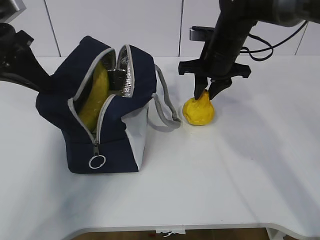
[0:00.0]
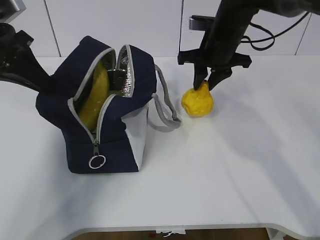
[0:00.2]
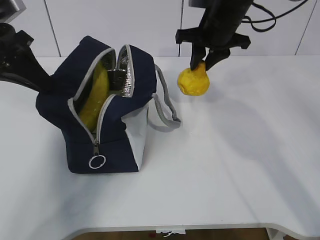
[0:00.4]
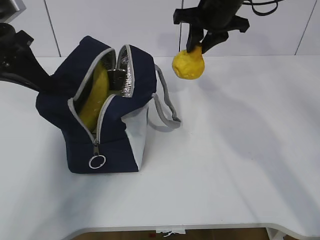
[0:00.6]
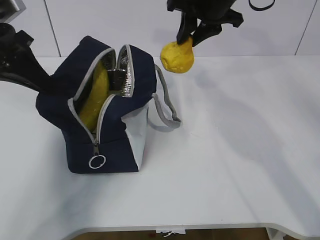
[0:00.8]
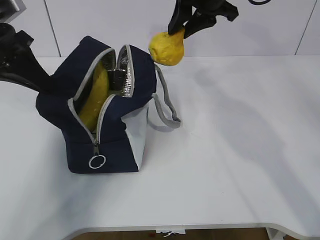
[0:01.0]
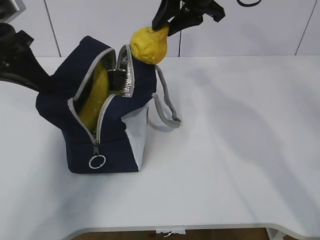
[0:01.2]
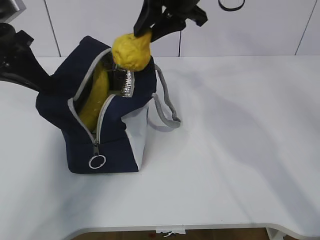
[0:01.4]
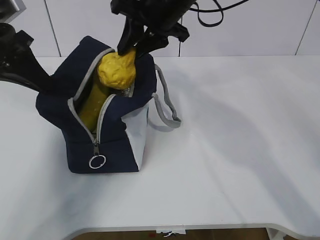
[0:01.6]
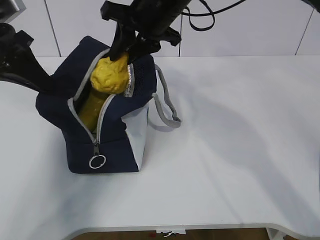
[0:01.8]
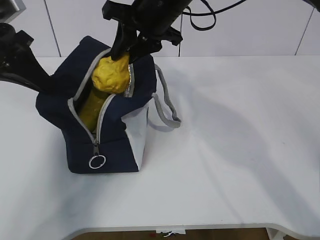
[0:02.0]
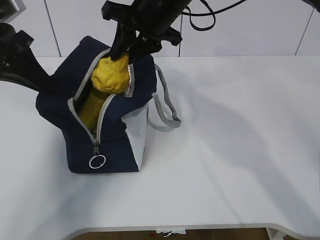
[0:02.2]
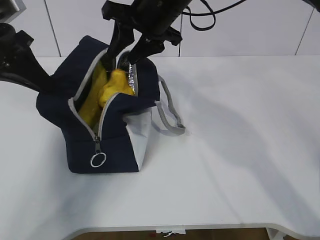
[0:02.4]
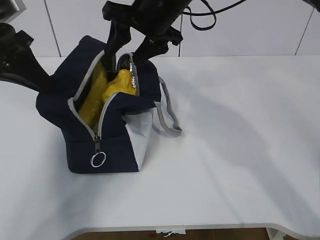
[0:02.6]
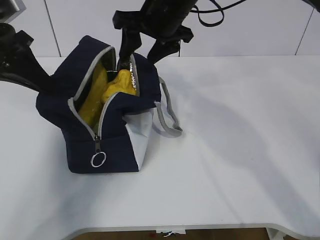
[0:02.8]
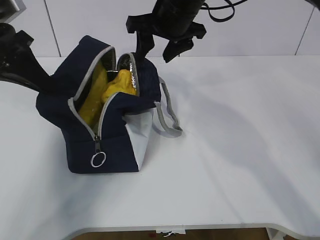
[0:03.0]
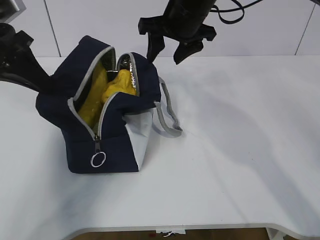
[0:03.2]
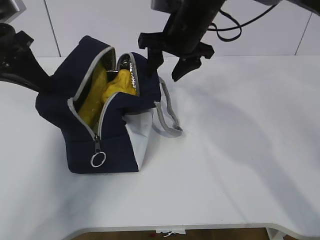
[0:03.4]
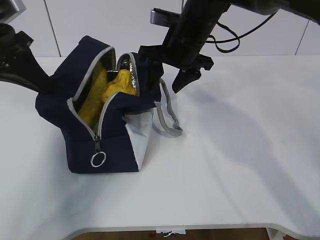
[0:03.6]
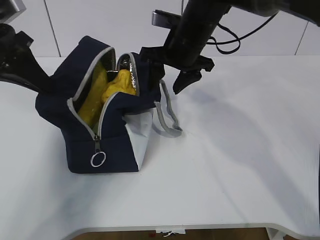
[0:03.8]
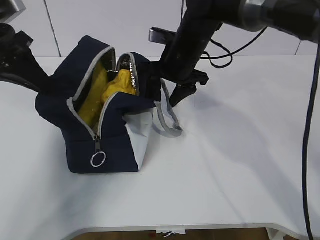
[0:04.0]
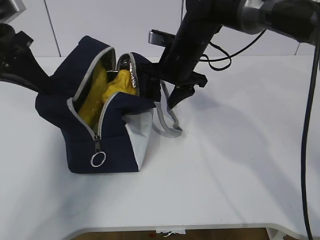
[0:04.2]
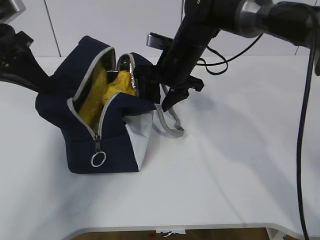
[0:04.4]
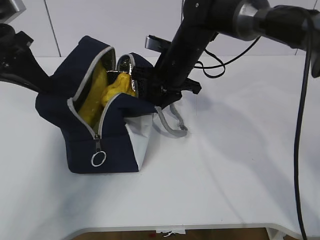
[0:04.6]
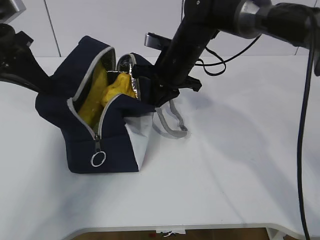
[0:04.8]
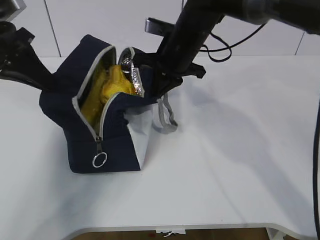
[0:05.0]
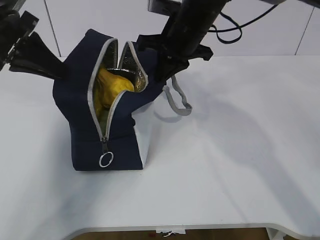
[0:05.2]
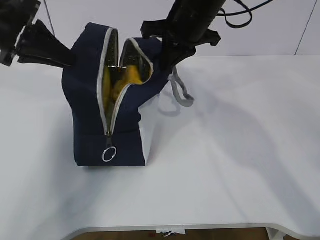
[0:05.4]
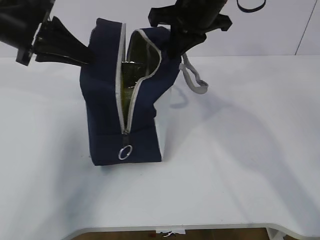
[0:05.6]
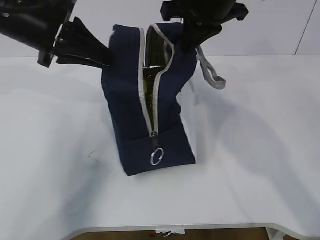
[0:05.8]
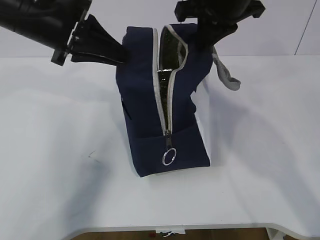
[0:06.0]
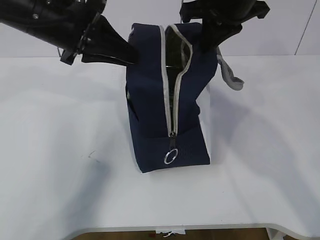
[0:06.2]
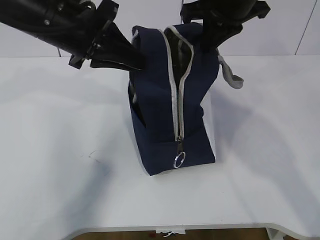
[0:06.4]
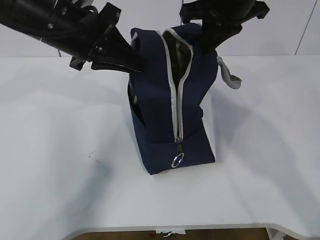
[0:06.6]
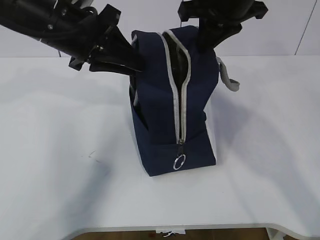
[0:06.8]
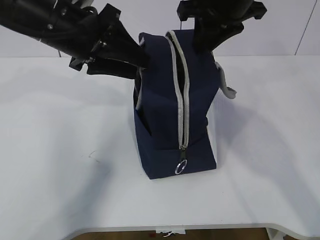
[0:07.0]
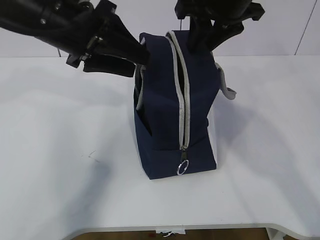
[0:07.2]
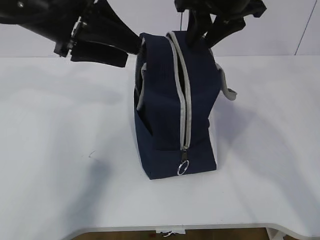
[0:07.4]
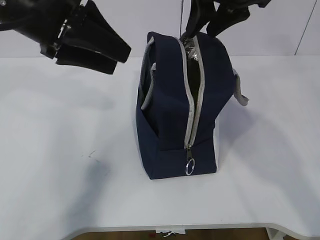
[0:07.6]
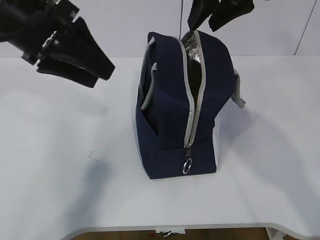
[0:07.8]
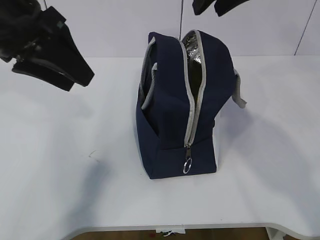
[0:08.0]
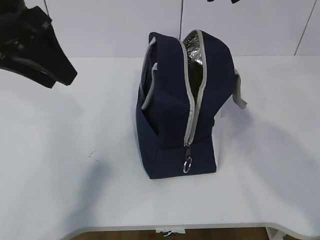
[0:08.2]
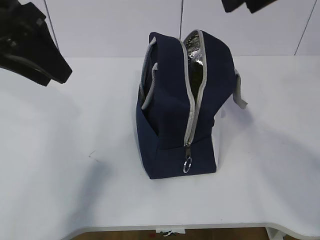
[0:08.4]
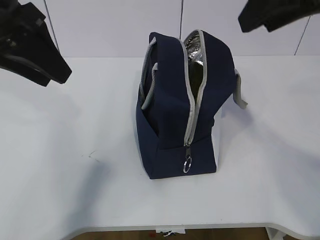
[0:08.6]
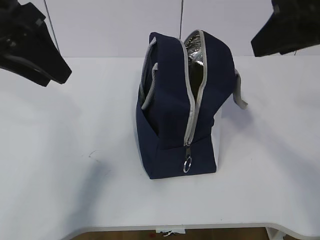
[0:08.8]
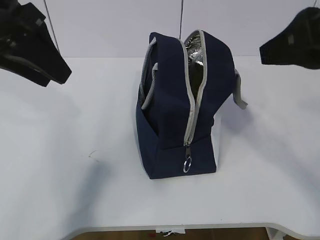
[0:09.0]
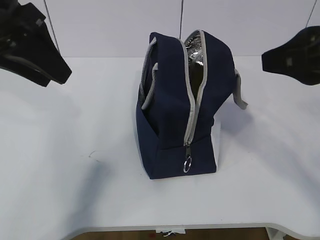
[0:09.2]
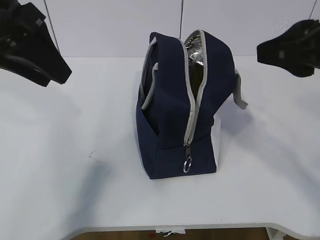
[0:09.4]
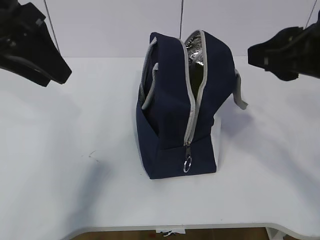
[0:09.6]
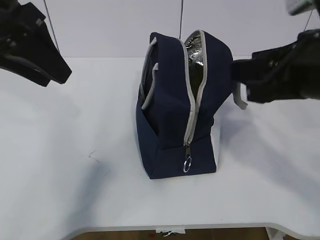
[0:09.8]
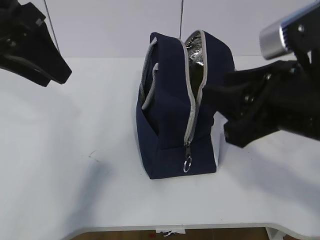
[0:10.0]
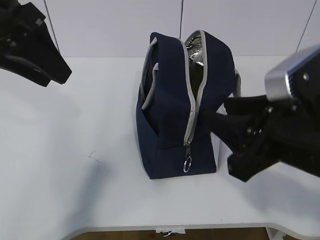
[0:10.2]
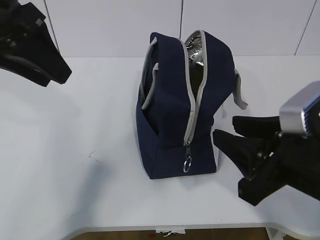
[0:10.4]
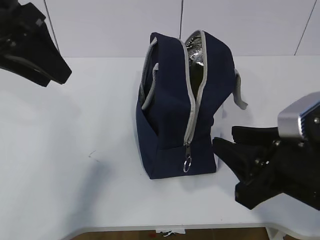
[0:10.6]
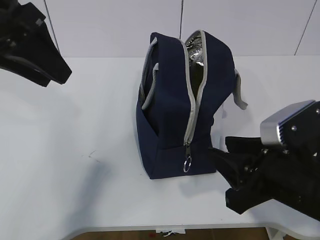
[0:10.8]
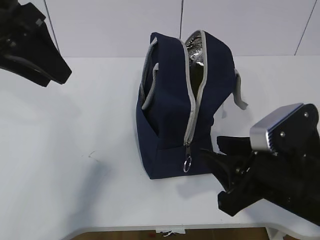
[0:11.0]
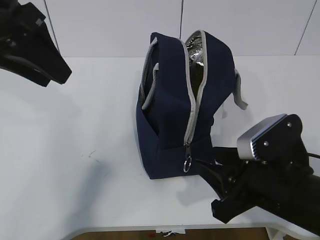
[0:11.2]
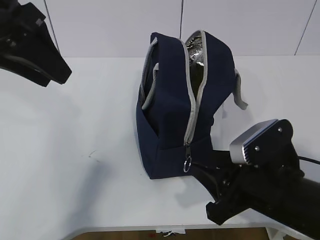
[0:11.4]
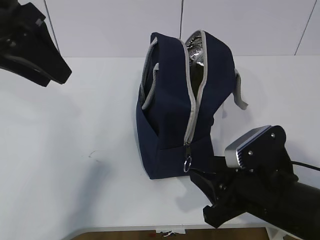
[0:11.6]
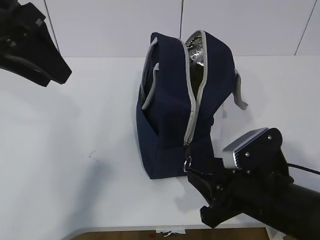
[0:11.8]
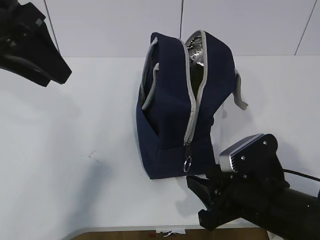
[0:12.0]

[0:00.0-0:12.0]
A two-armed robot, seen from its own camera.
0:00.0 to 0:01.6: The right gripper shifts about 15 cm upward and to the left.
0:01.6 to 0:03.0: The right gripper opens its fingers.
0:03.0 to 0:04.4: The right gripper goes approximately 10 cm downward.
0:04.4 to 0:06.0: The left gripper travels to the right by some 10 cm; the right gripper heads upward, to the right and backward, covering some 15 cm, and closes up.
0:06.0 to 0:07.6: The right gripper opens; the left gripper opens.
0:07.6 to 0:09.0: The left gripper shifts by approximately 5 cm; the right gripper travels backward by about 15 cm.
0:09.0 to 0:10.4: The right gripper moves downward, approximately 15 cm.
0:10.4 to 0:12.0: The right gripper heads downward, covering about 10 cm.

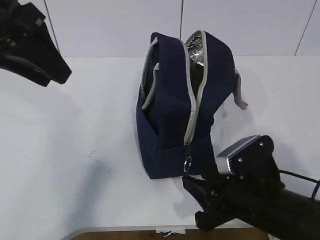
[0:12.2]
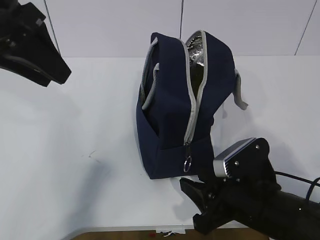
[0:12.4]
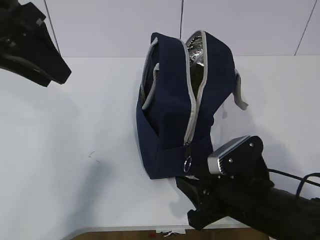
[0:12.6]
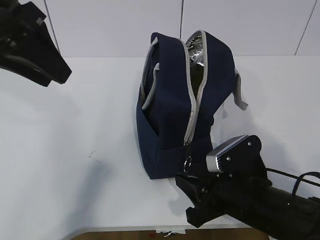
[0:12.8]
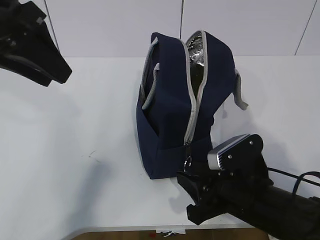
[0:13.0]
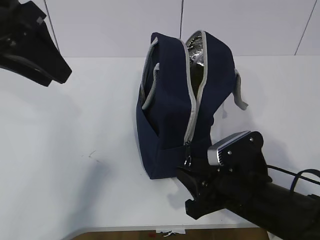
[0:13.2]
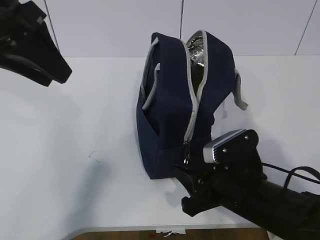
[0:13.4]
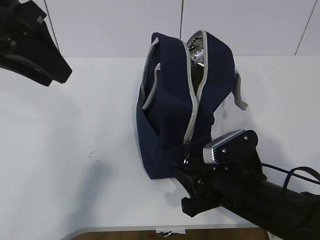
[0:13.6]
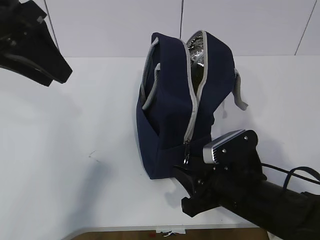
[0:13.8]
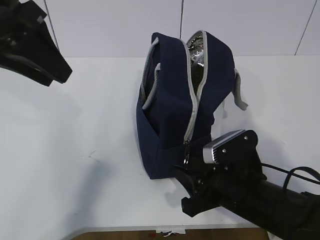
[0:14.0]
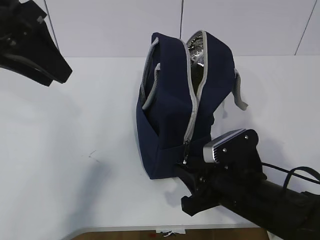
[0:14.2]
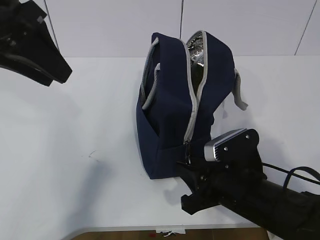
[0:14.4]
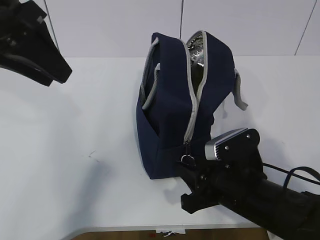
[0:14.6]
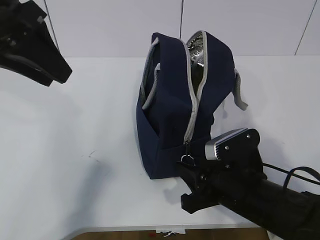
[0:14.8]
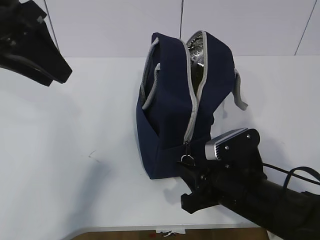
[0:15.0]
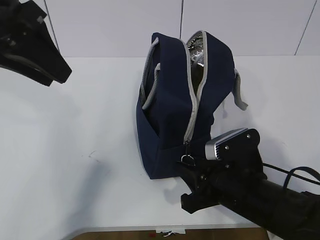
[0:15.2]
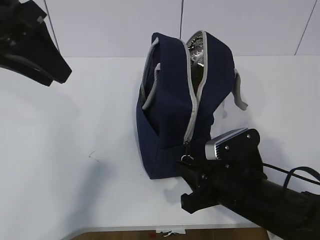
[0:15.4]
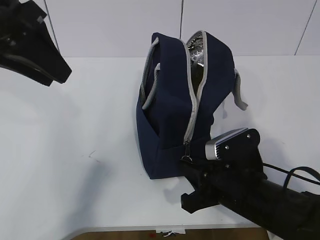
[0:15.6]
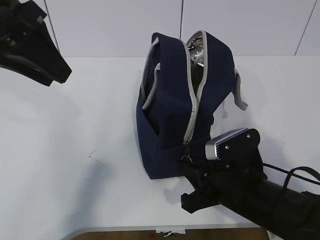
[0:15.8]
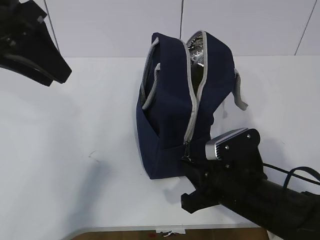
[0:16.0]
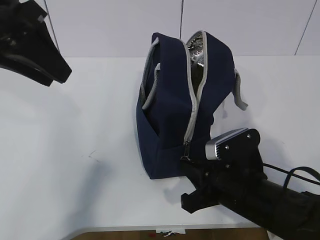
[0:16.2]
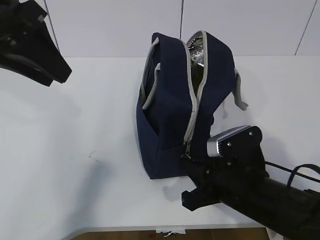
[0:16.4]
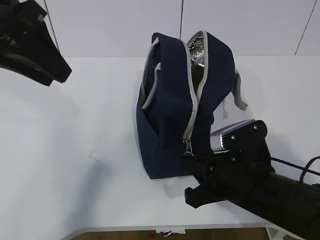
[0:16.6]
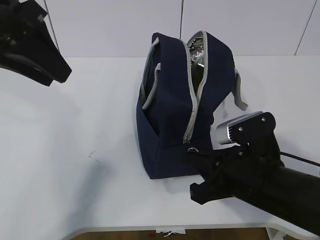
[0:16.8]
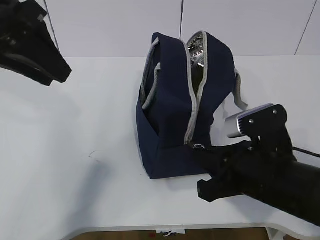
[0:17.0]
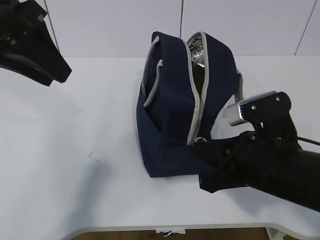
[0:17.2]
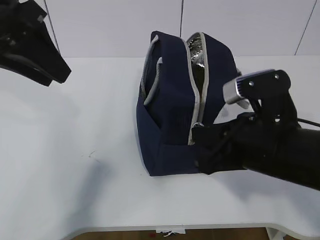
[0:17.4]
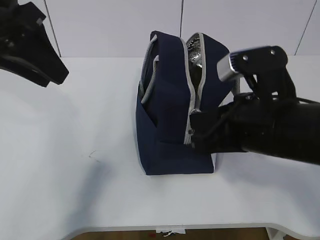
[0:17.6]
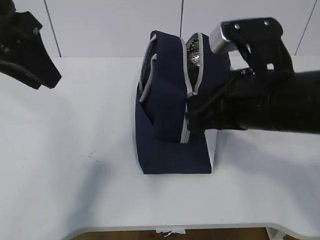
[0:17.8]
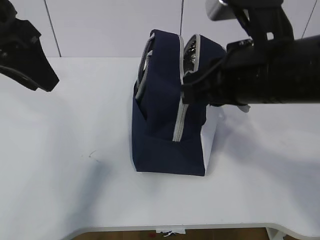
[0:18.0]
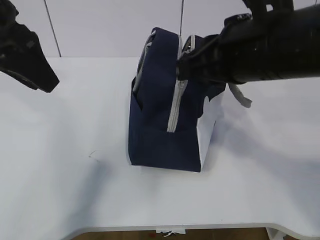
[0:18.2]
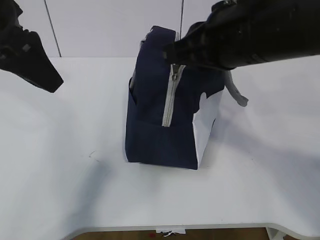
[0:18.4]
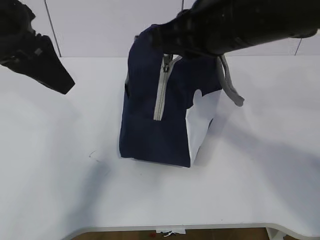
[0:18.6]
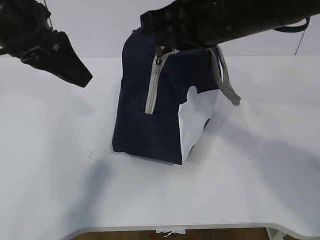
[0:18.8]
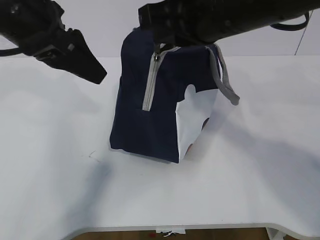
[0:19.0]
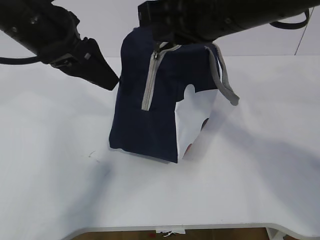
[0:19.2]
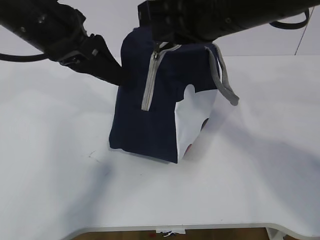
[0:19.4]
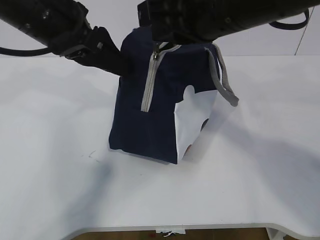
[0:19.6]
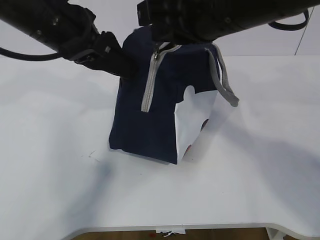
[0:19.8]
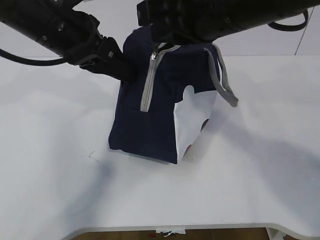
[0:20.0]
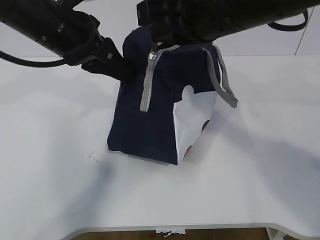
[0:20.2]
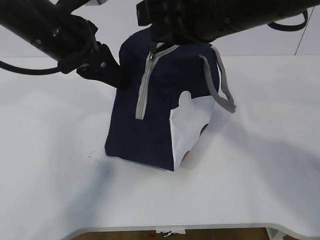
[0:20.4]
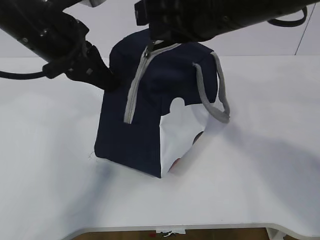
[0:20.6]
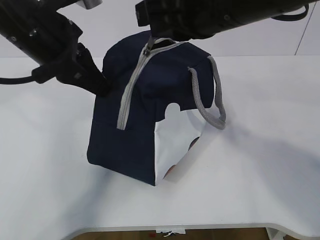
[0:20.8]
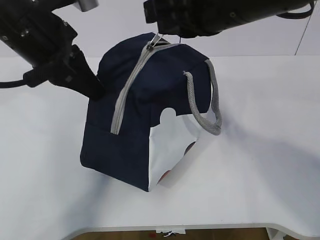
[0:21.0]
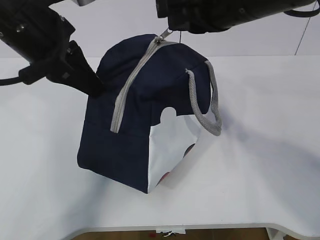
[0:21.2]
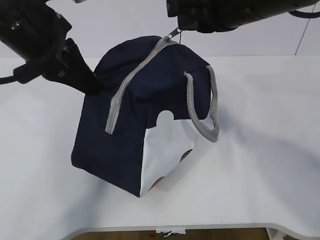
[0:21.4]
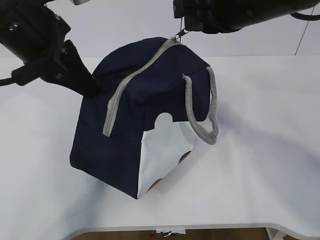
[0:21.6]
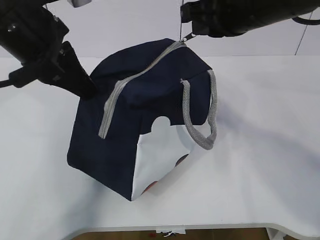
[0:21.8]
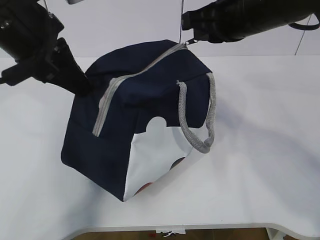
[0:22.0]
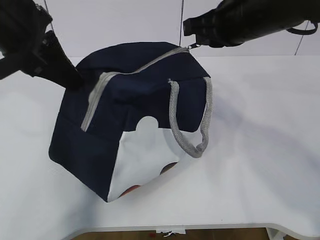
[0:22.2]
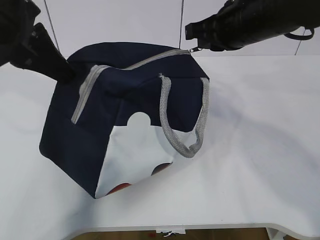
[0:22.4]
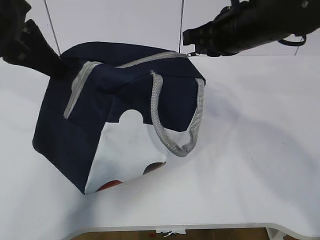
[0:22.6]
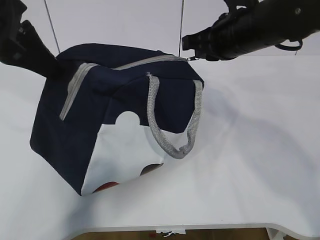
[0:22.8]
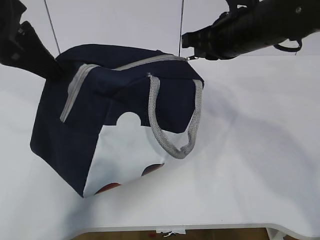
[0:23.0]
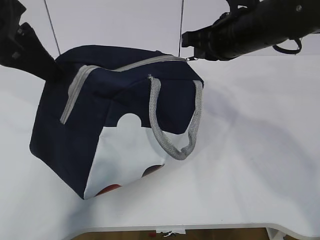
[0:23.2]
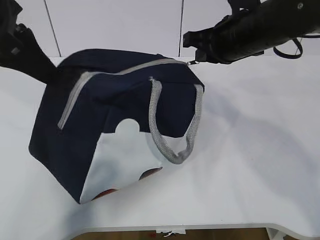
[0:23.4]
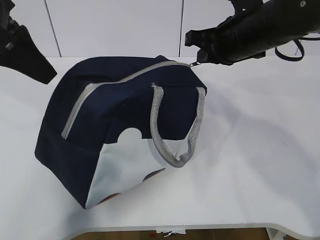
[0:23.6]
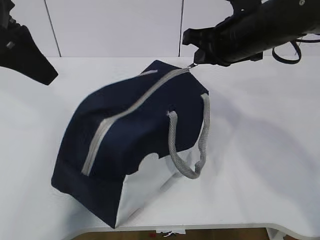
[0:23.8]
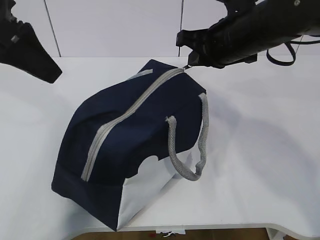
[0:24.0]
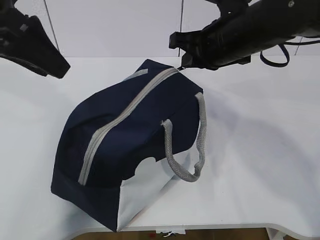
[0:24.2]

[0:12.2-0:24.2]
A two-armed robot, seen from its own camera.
Step, 0:14.2 to 0:24.2: Pull the zipper with your right hand.
0:12.2 to 0:13.8: The grippers make only small movements.
0:13.8 to 0:15.2: Both grippers stay put.
0:15.2 to 0:16.6: The right gripper closes up.
0:16.6 to 0:18.2: The right gripper heads upward, covering some 20 cm.
0:18.2 to 0:19.8: The right gripper ends up about 5 cm from where it was, while the left gripper goes roughly 5 cm to the right.
0:19.8 to 0:21.2: The left gripper closes up.
0:21.2 to 0:22.6: The right gripper shifts approximately 10 cm forward and downward. Meanwhile the left gripper shifts by about 5 cm.
0:22.6 to 0:24.2: The left gripper opens up.
